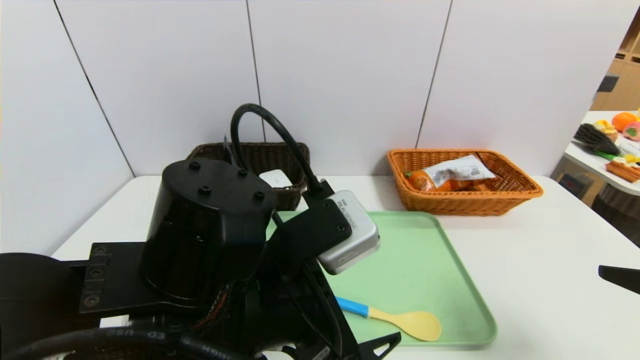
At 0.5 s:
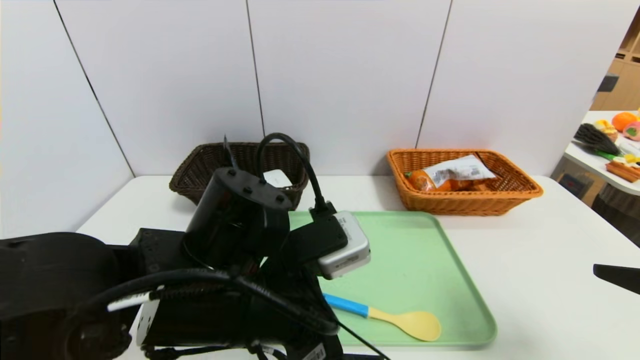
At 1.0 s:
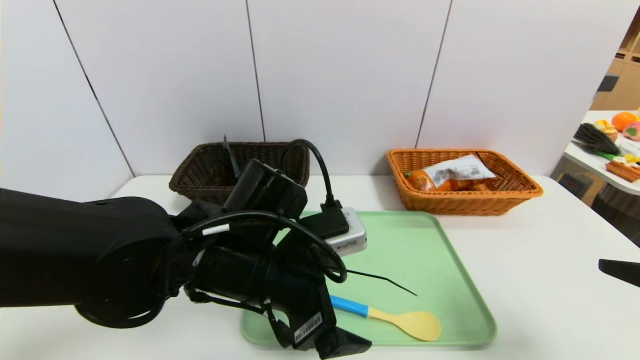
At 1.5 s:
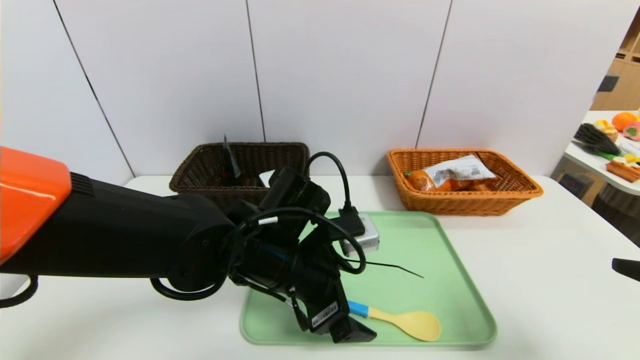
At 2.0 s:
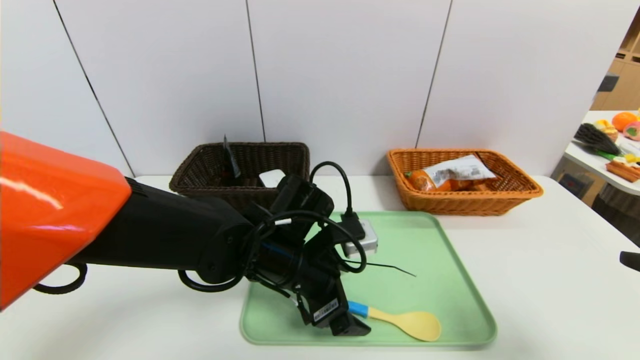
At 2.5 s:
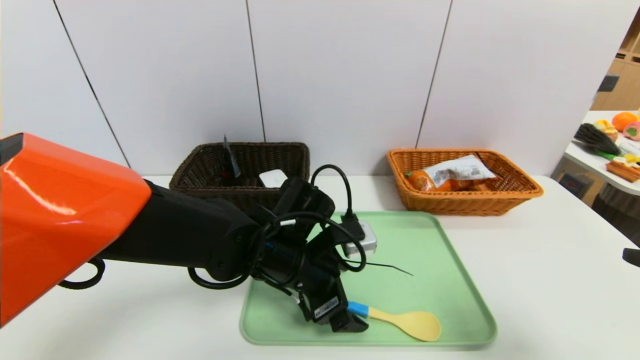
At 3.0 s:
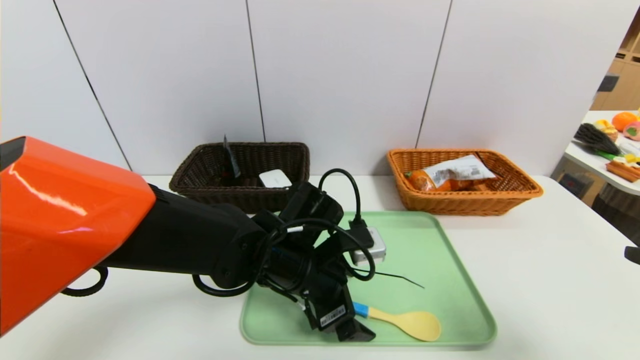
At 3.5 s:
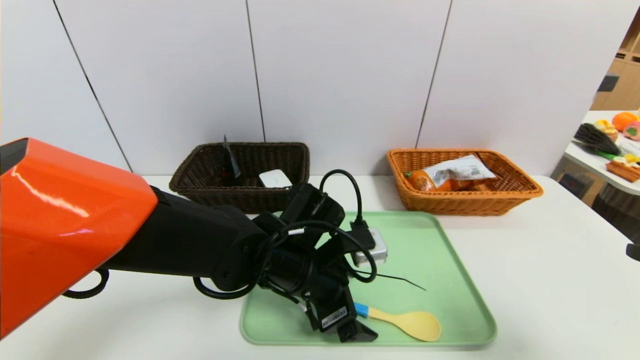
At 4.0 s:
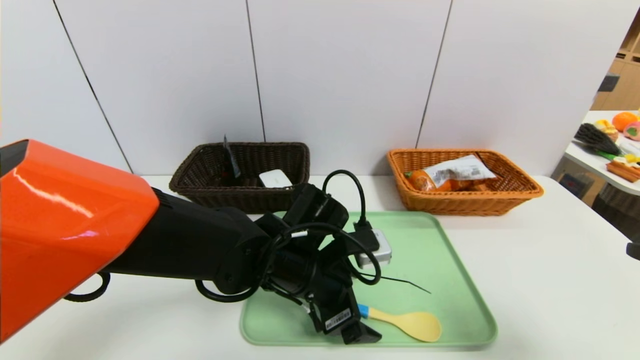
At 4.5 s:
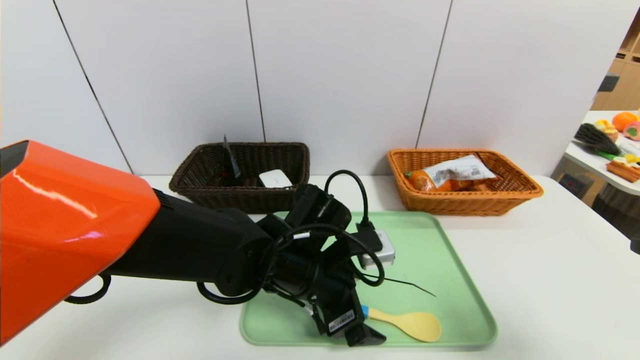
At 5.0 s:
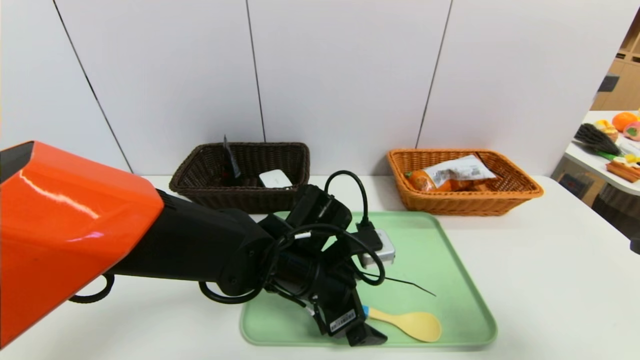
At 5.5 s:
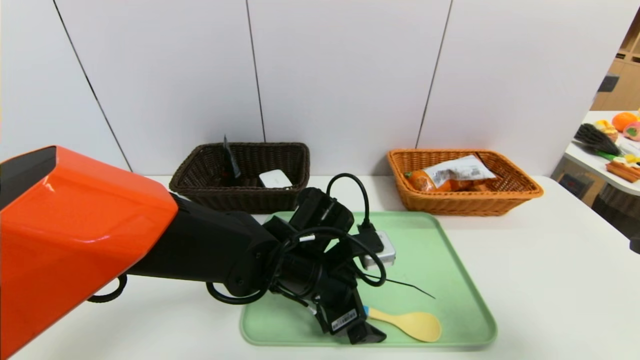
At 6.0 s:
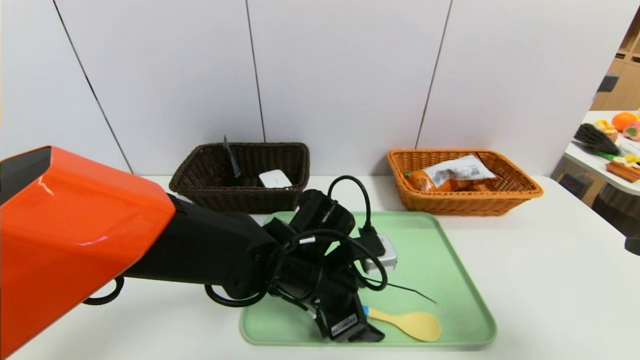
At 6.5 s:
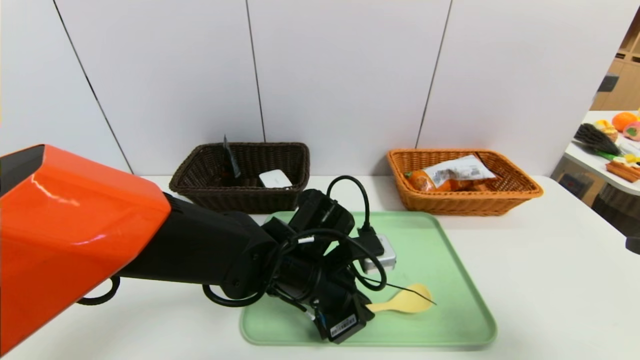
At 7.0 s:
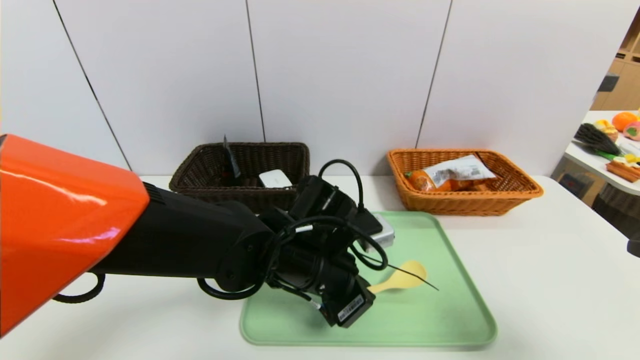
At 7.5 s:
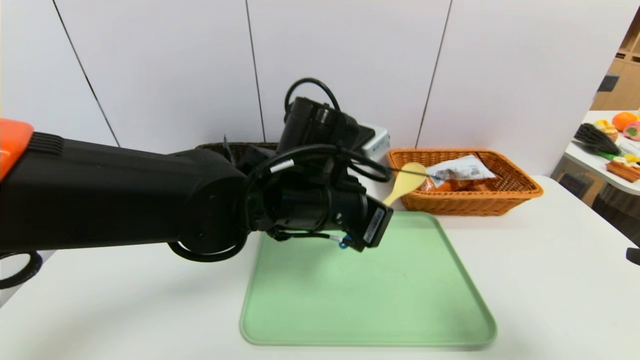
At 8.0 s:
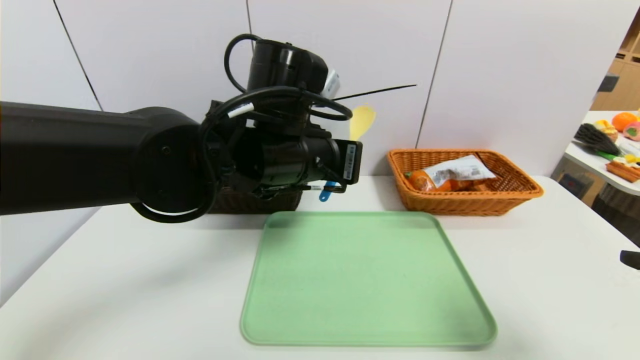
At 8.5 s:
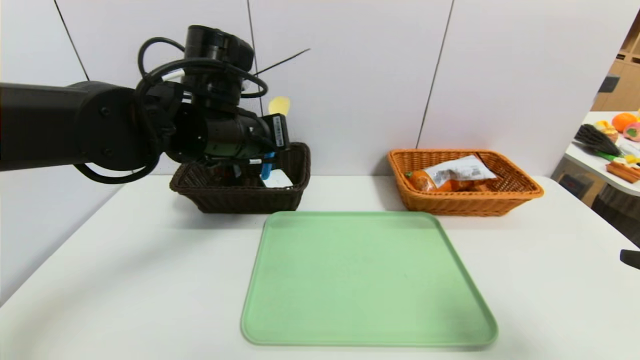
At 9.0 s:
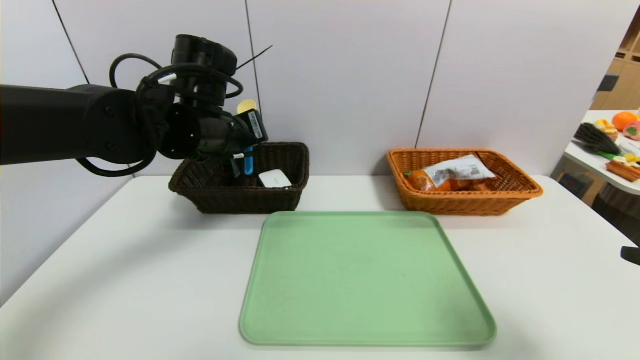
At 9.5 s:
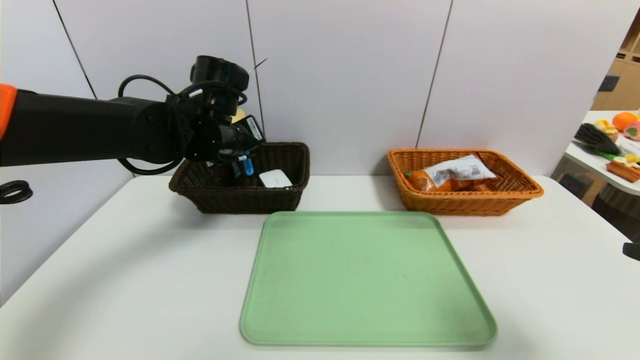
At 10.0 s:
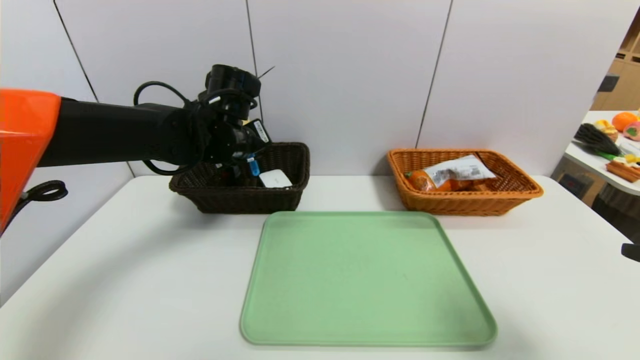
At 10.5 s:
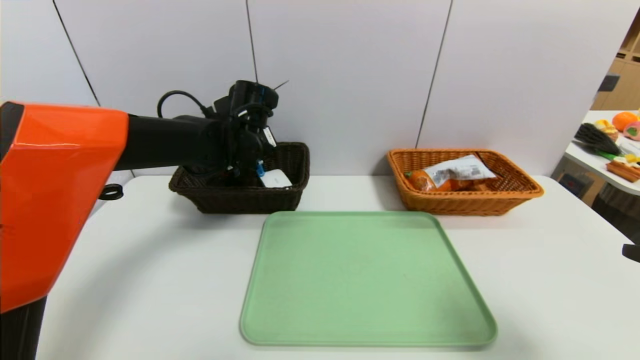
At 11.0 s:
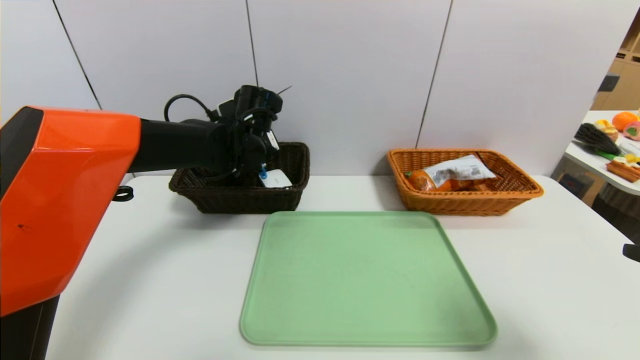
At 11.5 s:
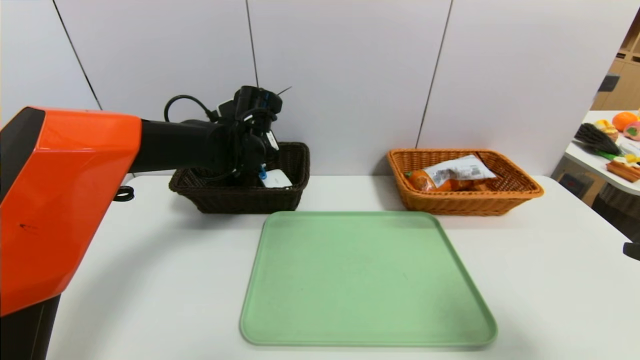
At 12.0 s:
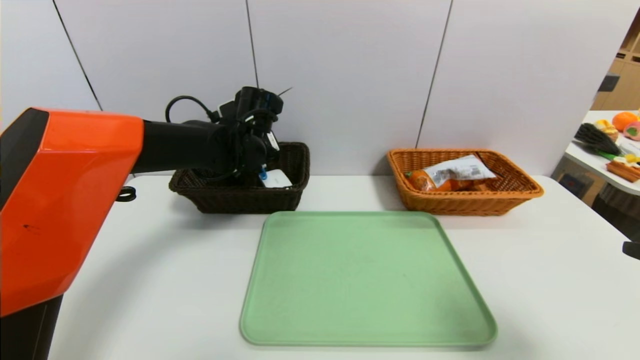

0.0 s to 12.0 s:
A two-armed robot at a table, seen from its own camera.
Task of the whole recording: place the food in the right basket with the right gripper, and place the non food items in the left basket with the left gripper.
0.0 to 2.0 s: The left gripper is displaced forward and downward by about 15 cm.
2.0 to 4.0 s: The grippers make only small movements.
4.0 to 6.0 s: The two grippers keep their place.
6.0 to 8.0 s: The left gripper heads upward, covering approximately 15 cm, and closes its fingers.
8.0 to 10.0 s: The left gripper heads forward and to the left, covering some 15 cm.
10.0 to 12.0 s: The left gripper moves approximately 5 cm.

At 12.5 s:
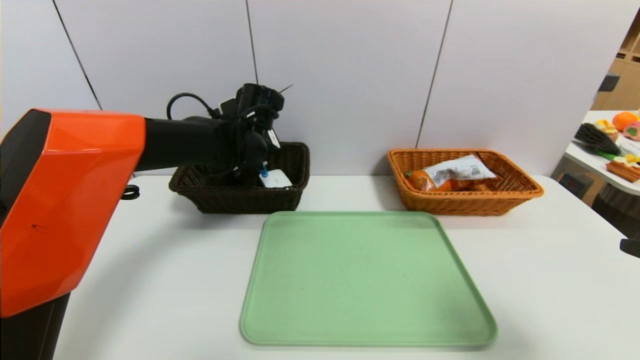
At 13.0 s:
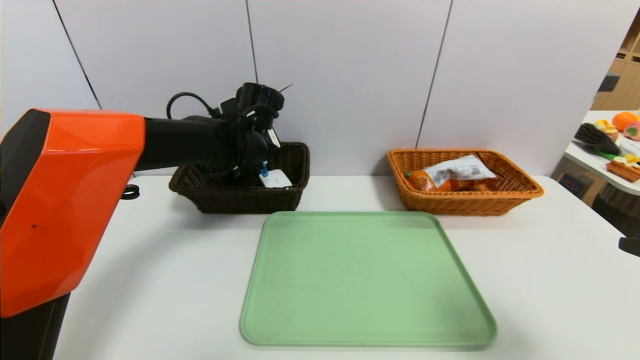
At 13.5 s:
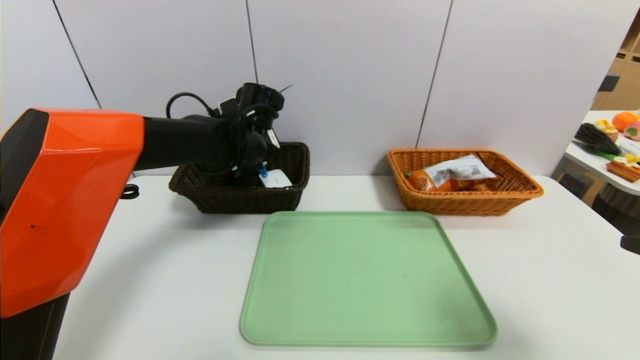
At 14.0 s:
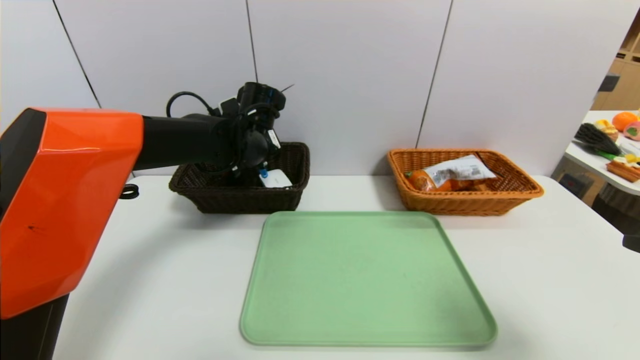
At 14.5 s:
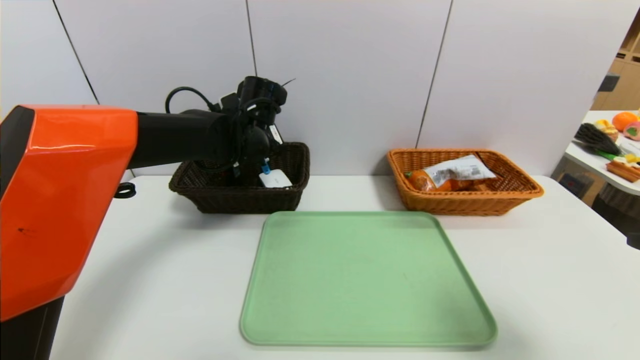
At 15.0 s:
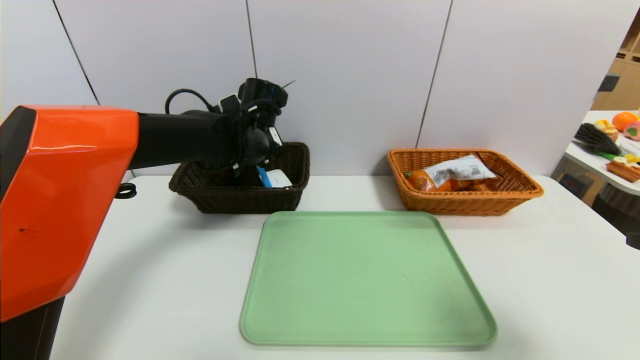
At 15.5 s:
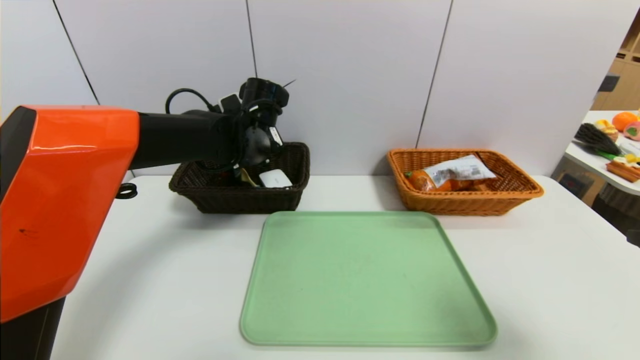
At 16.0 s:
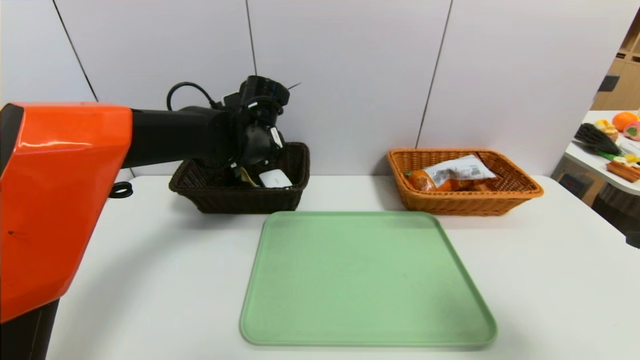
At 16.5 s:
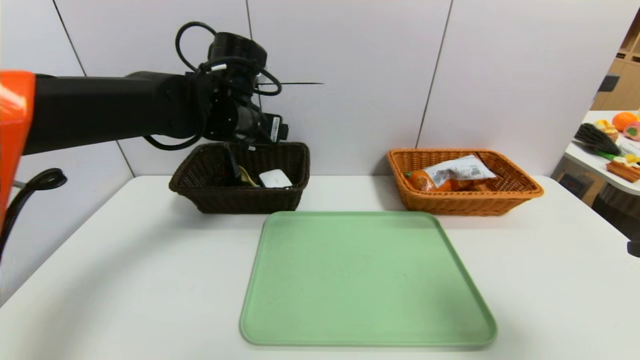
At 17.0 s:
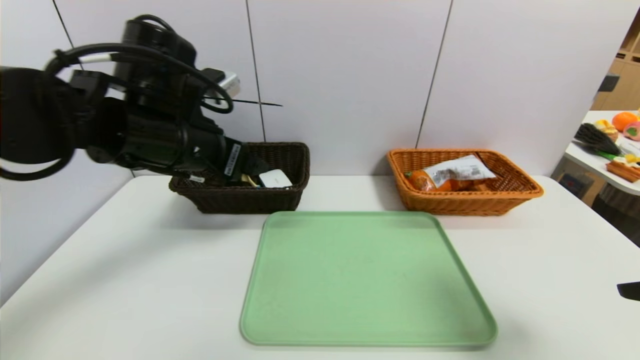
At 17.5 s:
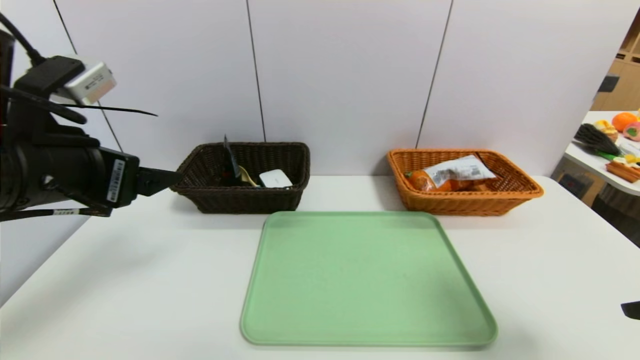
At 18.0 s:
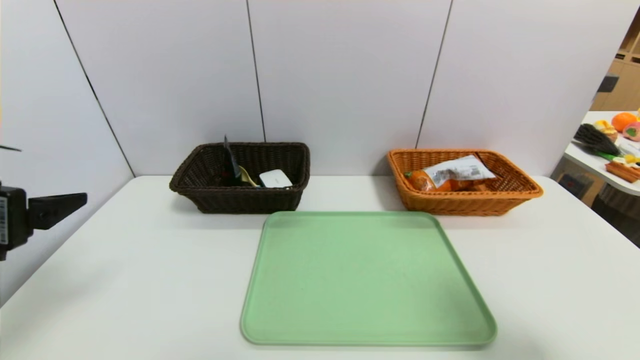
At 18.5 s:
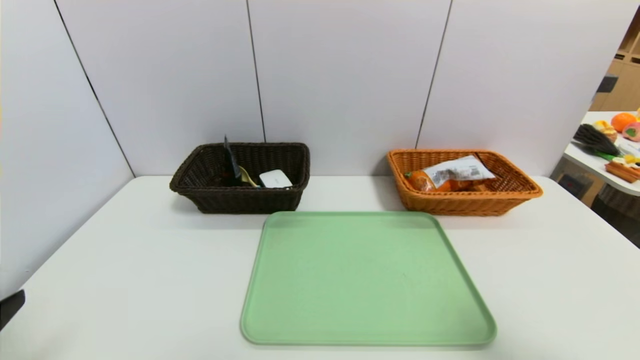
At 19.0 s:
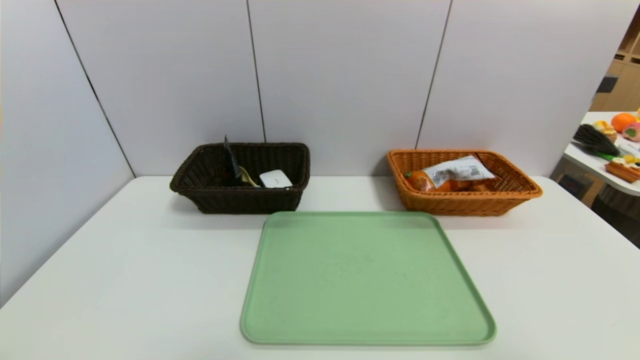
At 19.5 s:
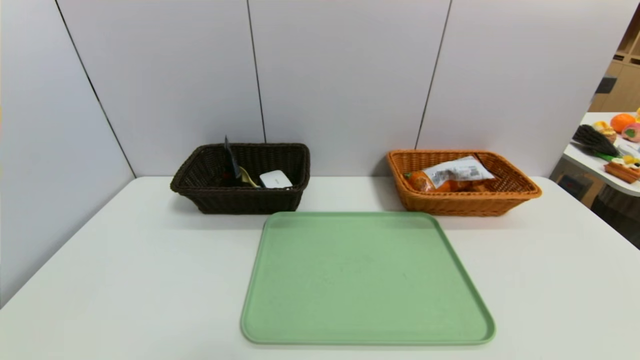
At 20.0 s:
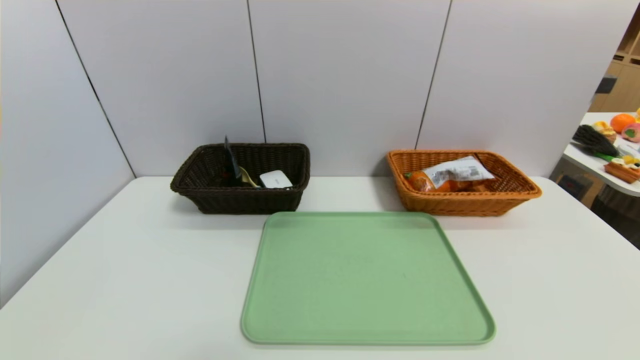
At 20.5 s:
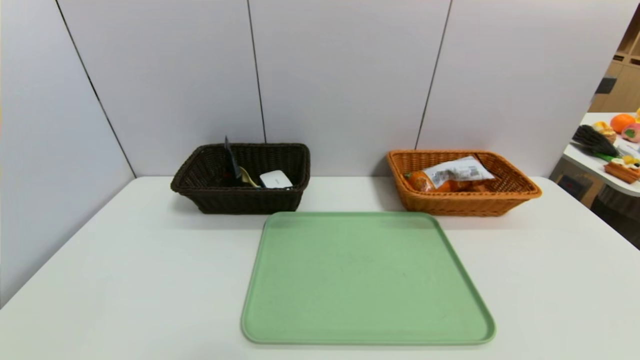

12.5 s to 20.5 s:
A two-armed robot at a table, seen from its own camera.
Task of the whole recording: place the food in the right basket with the right gripper, and place the non food items in the left basket with the left gripper.
Step, 12.5 to 16.5 s: Grasp the spoon and put it in the left basket.
12.5 to 14.5 s: The grippers stay close to where they were, moving slightly.
14.5 to 16.5 s: The left gripper shifts roughly 5 cm upward, and opens its fingers.
16.5 to 18.5 s: The right gripper shifts some 5 cm backward. The left gripper heads backward and to the left, covering some 40 cm.
18.5 to 20.5 s: Both grippers travel together backward and downward, some 15 cm.
